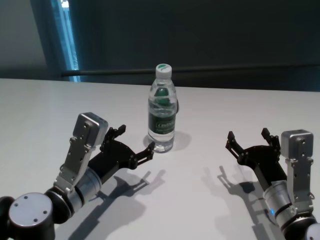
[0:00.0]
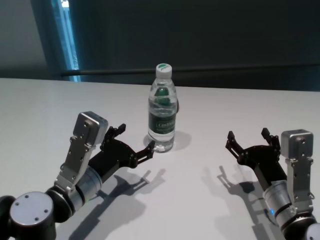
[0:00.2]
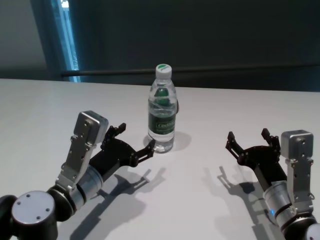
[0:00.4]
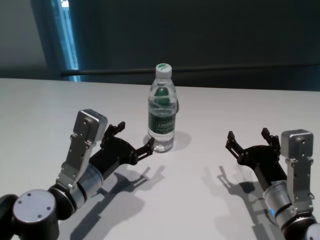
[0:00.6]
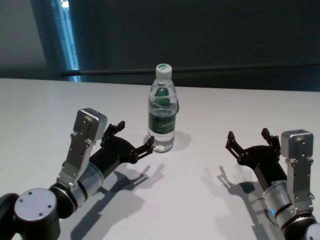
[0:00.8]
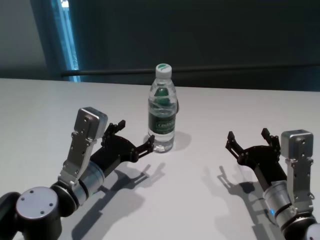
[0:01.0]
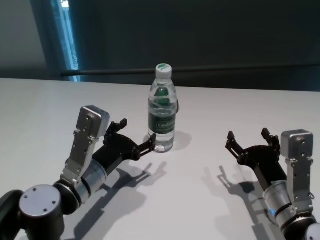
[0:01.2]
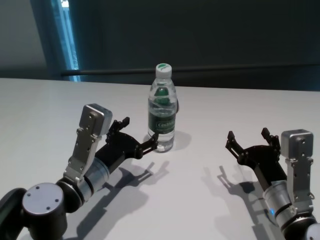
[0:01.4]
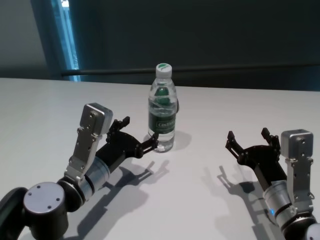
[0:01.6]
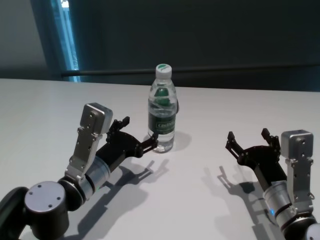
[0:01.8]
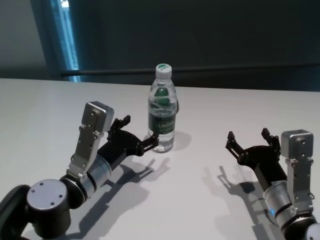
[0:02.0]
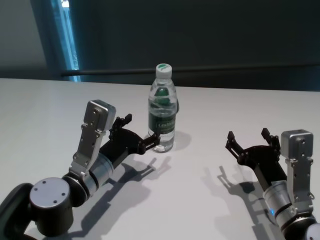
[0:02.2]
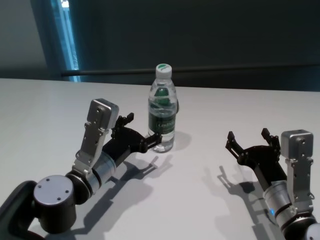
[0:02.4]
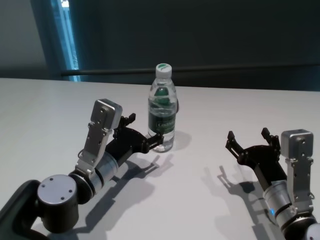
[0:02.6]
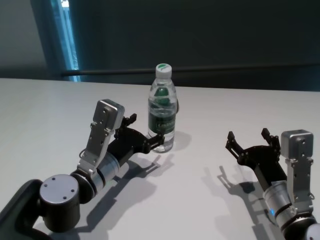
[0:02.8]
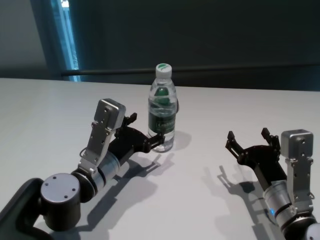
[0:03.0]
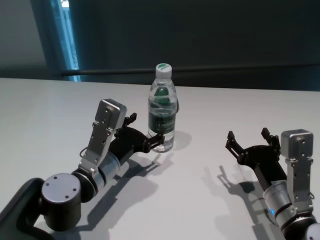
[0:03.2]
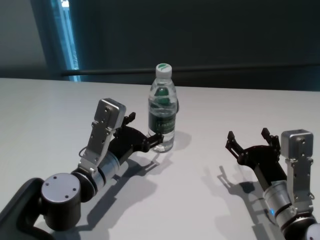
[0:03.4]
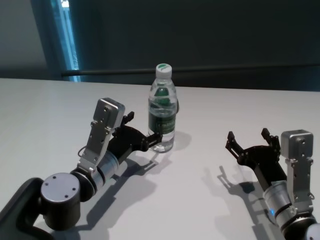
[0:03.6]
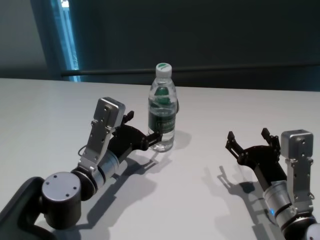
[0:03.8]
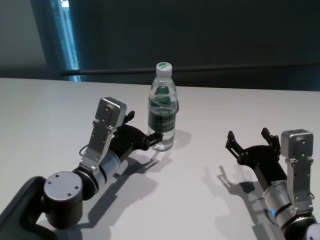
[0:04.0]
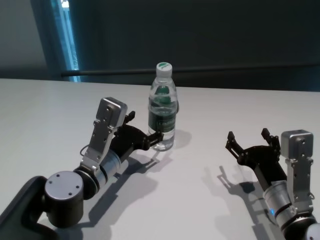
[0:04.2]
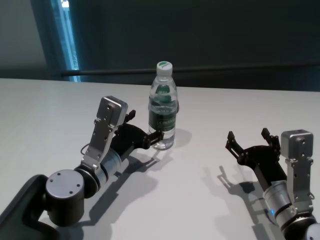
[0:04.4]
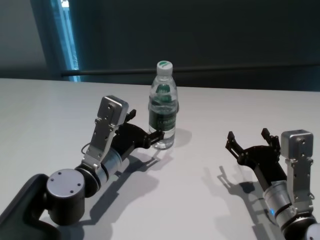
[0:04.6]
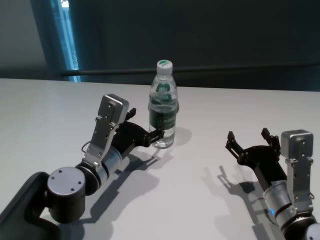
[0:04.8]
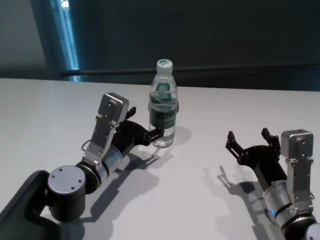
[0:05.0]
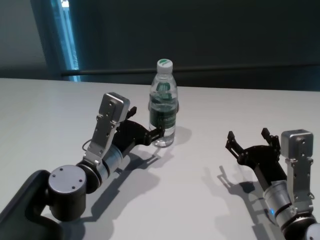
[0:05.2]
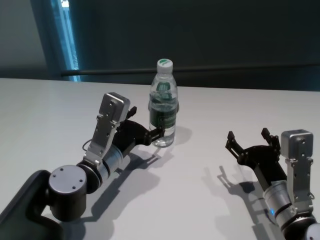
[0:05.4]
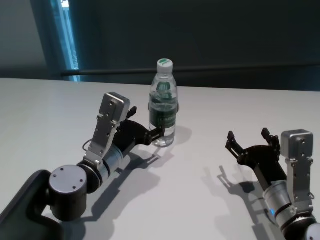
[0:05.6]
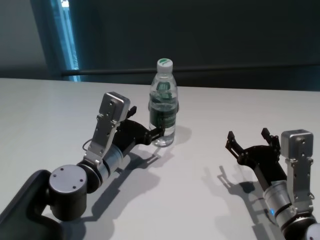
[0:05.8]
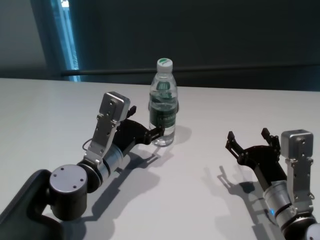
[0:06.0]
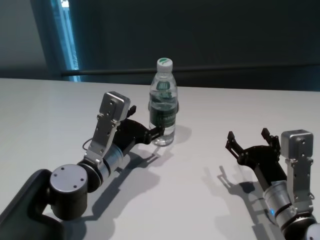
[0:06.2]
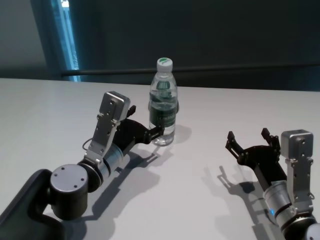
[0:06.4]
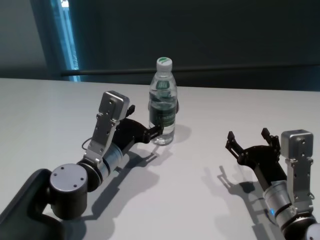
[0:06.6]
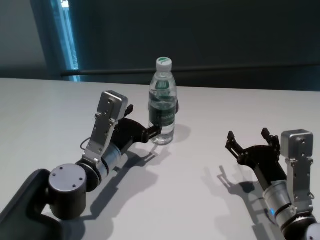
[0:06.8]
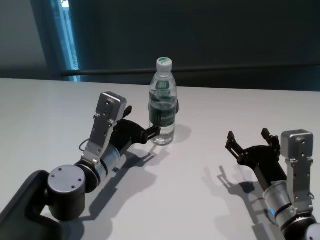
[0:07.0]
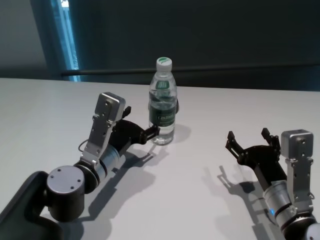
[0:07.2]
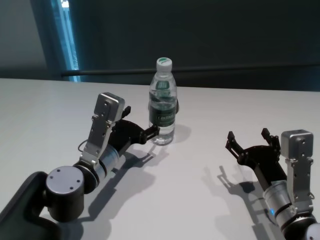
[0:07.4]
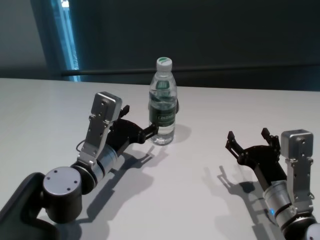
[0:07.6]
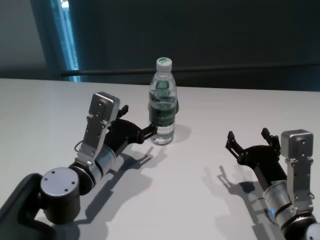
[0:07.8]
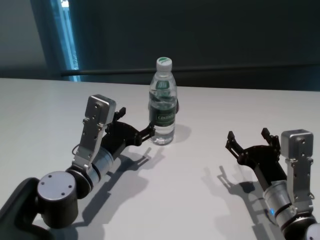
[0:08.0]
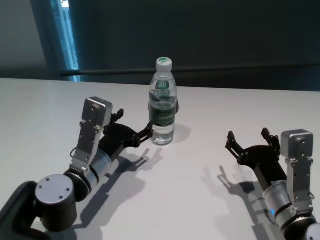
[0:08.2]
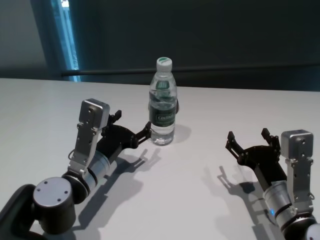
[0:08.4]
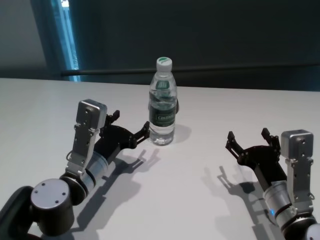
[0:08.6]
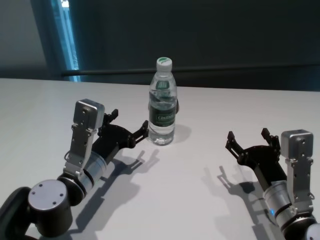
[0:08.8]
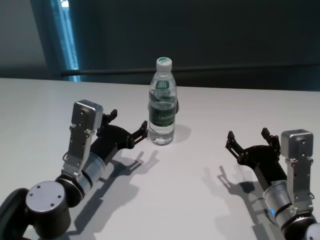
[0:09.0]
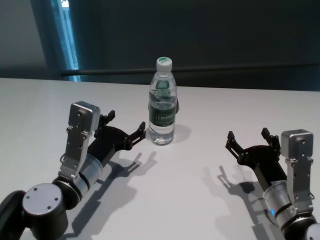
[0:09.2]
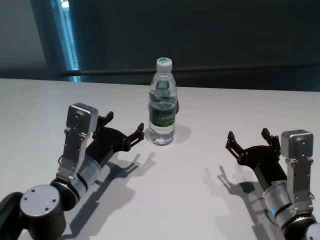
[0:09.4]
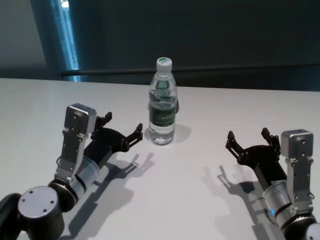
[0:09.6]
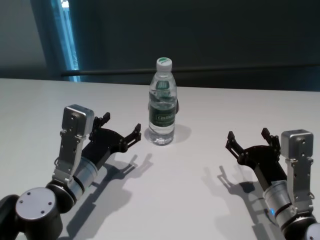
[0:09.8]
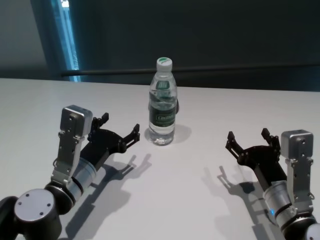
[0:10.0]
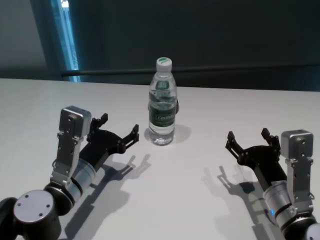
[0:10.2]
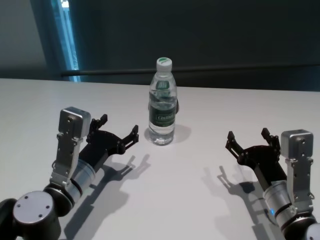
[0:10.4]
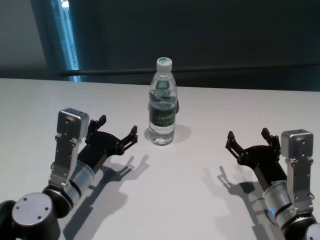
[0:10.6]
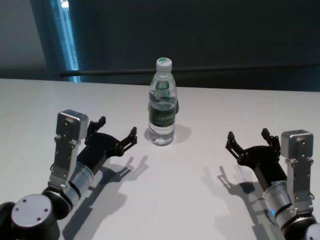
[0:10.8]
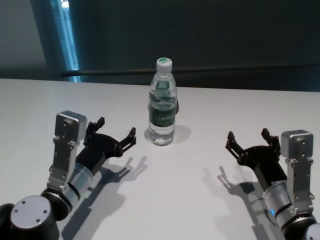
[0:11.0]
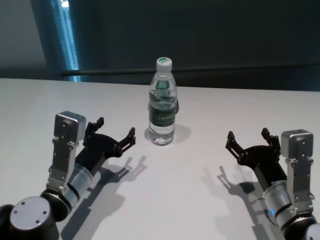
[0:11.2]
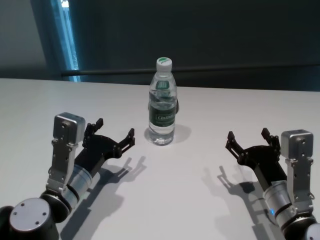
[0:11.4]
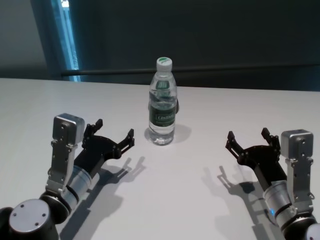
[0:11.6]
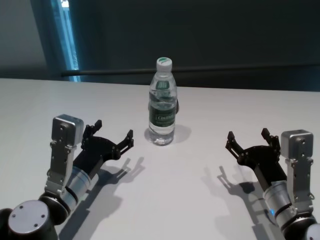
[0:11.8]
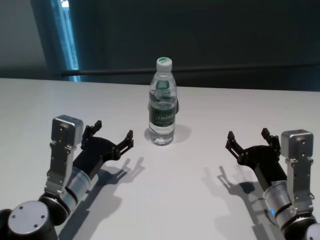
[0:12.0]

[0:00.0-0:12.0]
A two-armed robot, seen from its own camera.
Task of the whole recording: return to a safe position after touching an obstacle with your arm on the white table.
Step, 0:00.0 to 0:09.4: Touch the bottle with left gripper.

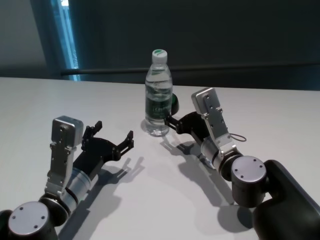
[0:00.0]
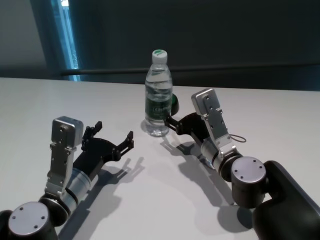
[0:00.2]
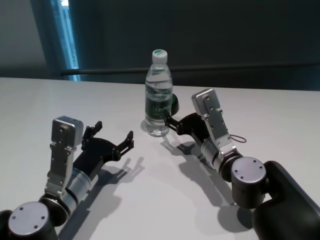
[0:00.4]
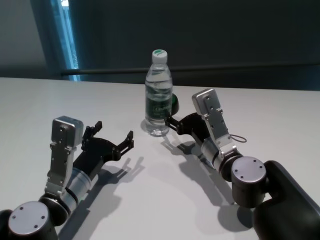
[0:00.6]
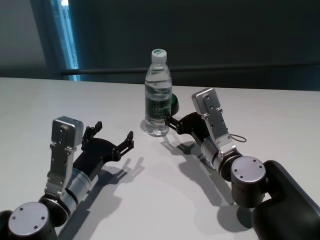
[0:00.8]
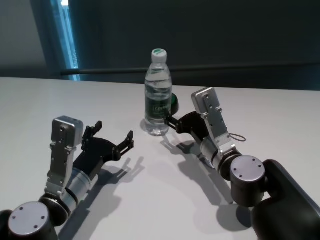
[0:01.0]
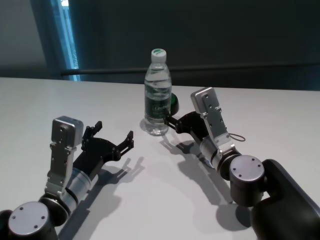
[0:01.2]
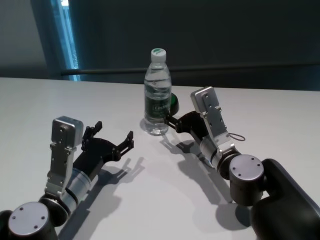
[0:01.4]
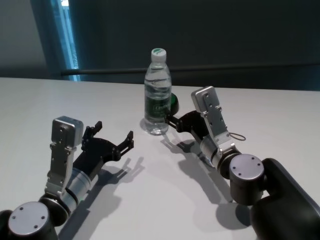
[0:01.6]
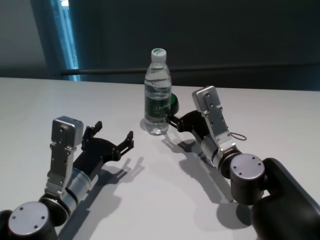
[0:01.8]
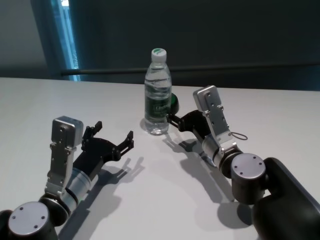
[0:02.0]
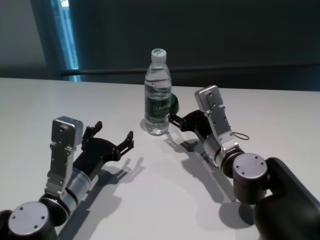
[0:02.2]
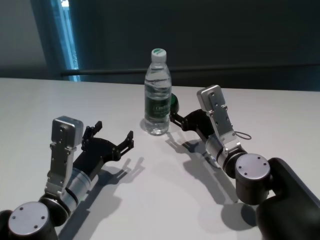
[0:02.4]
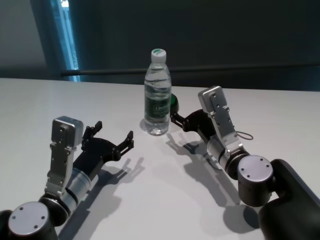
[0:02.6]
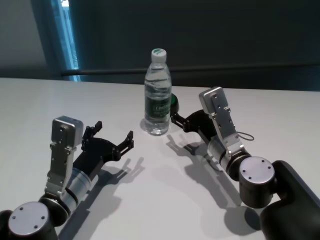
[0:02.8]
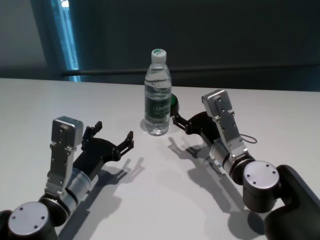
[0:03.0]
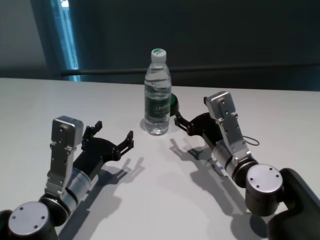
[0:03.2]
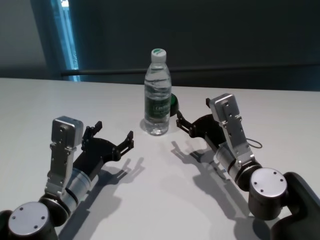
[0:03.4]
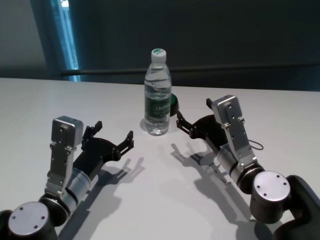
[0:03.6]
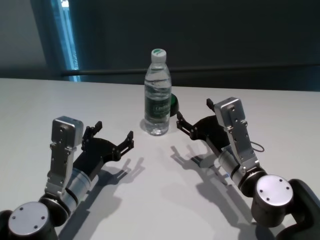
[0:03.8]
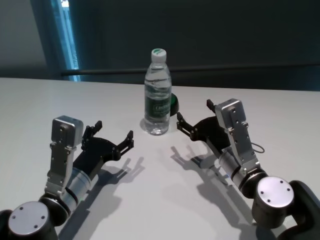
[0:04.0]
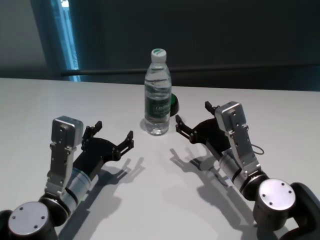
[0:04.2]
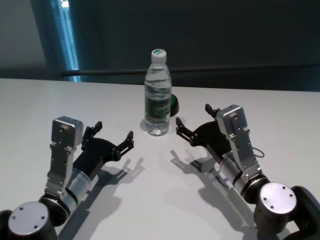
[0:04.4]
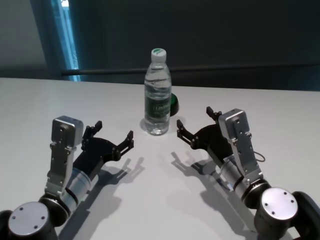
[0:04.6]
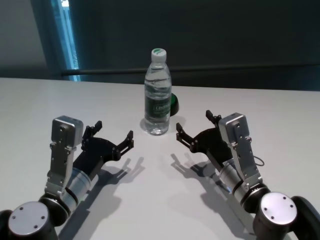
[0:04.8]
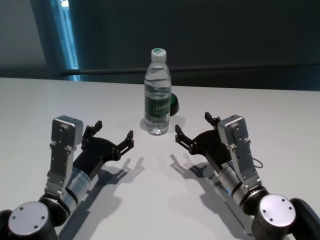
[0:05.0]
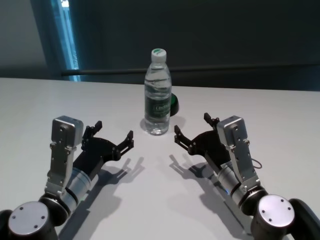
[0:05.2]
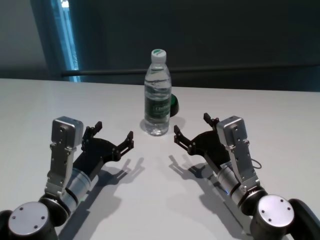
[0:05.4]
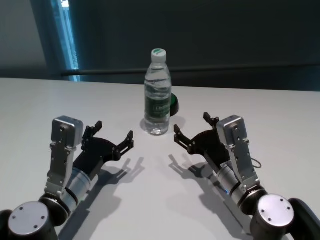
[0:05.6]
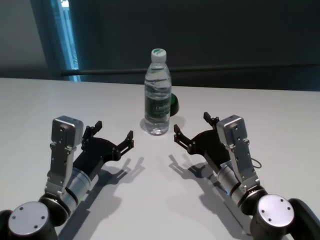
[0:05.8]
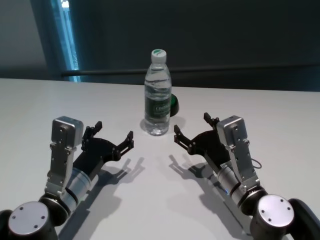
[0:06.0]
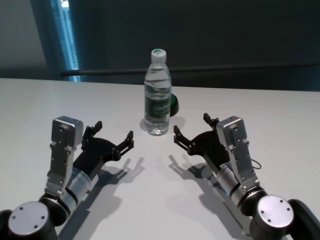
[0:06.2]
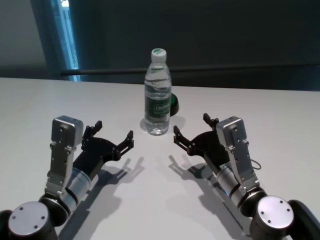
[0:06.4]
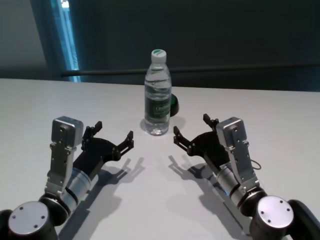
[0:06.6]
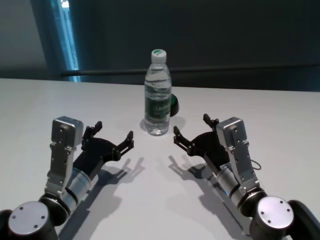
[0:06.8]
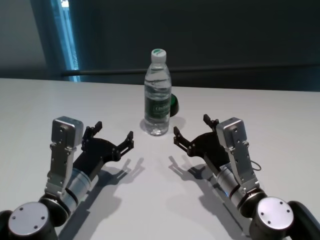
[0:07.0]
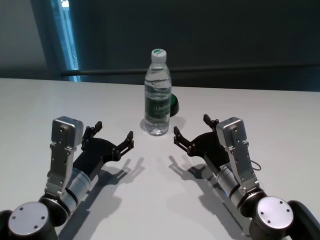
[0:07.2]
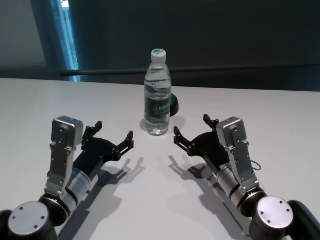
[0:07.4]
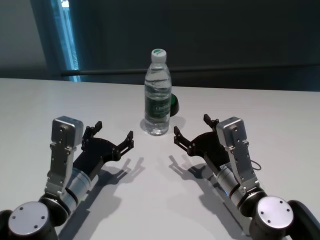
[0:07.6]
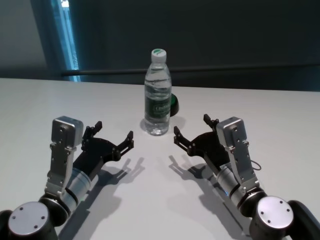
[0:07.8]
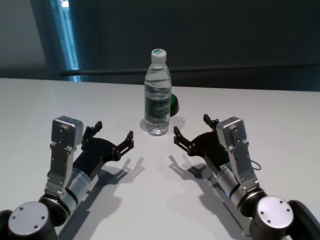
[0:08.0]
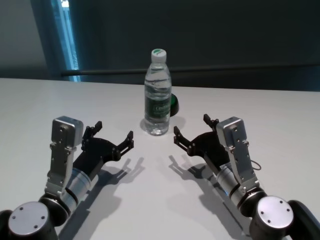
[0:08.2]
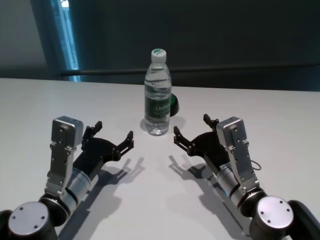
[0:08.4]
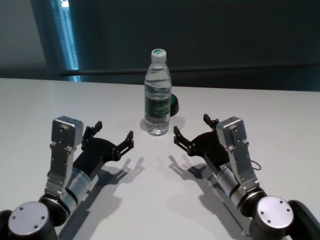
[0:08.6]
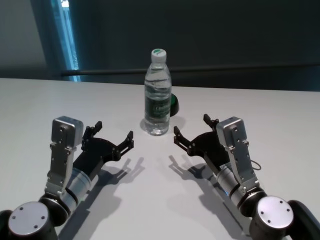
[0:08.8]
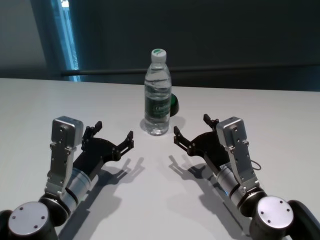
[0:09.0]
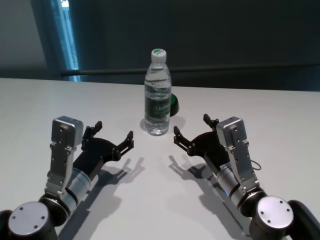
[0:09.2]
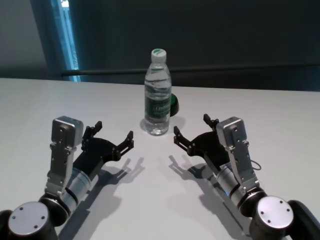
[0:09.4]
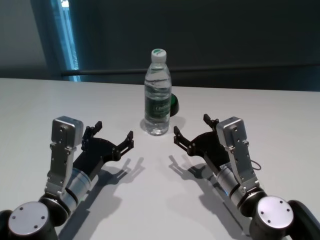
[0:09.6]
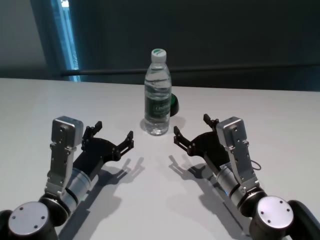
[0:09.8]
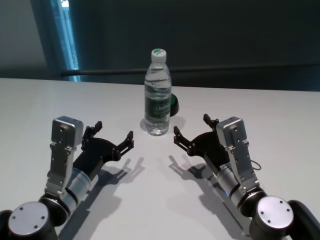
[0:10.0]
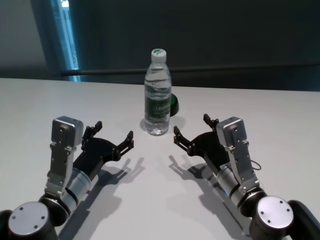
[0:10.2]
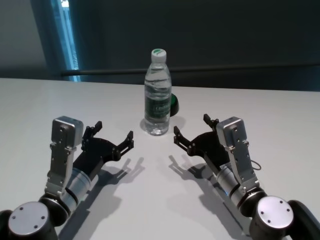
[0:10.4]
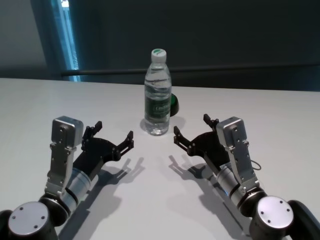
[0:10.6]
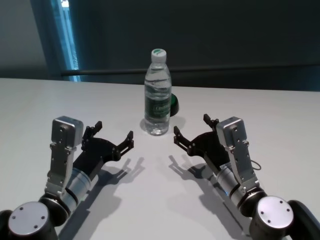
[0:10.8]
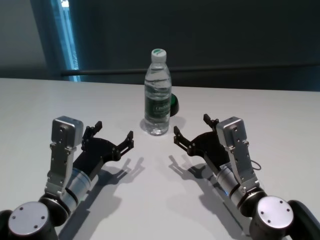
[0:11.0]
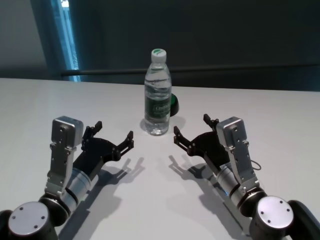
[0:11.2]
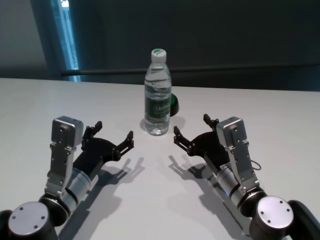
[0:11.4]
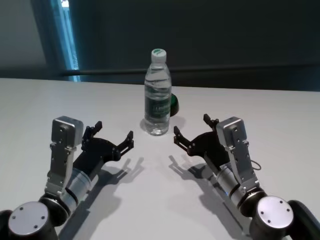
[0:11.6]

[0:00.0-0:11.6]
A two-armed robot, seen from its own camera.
Task of the whole recording: return to a safe position after touching an obstacle with your arm on the white table.
Step, 0:00.0 to 0:03.6: Touch the bottle with right gripper.
